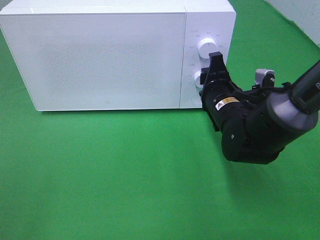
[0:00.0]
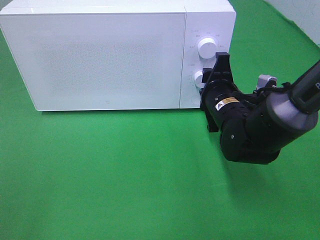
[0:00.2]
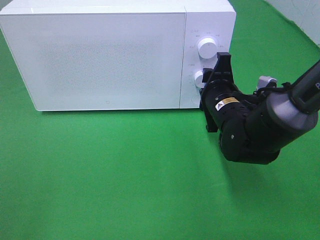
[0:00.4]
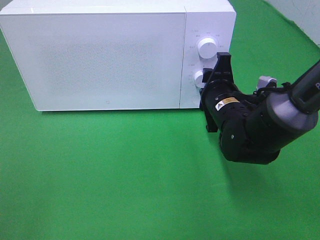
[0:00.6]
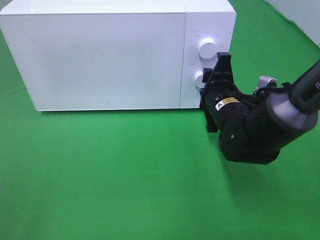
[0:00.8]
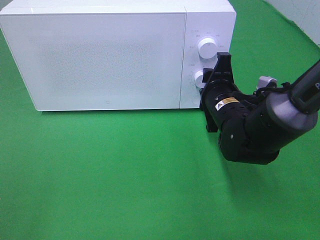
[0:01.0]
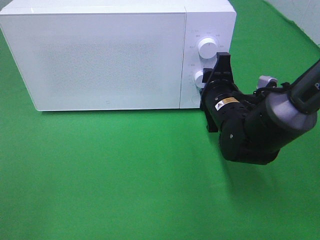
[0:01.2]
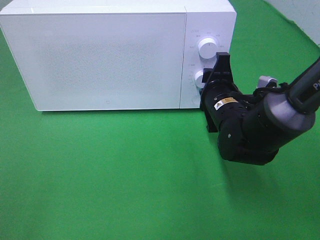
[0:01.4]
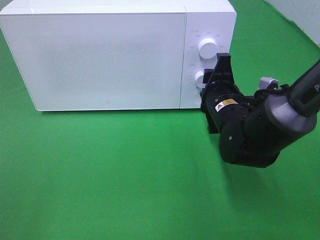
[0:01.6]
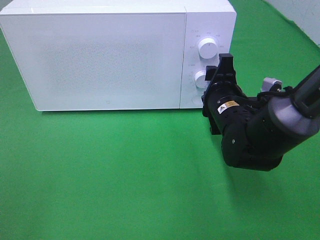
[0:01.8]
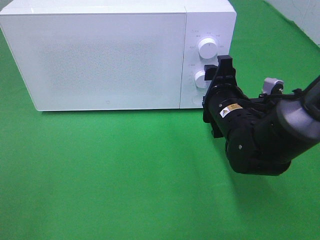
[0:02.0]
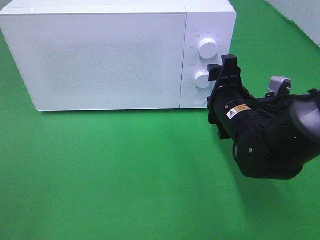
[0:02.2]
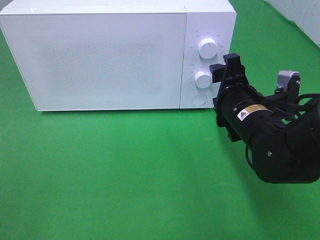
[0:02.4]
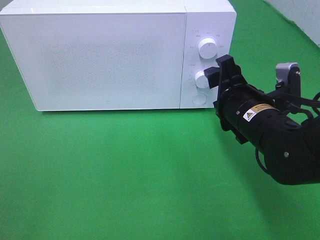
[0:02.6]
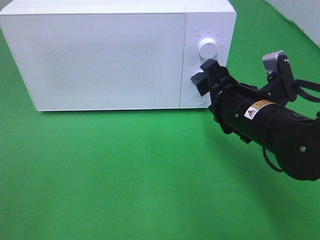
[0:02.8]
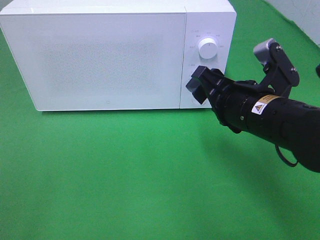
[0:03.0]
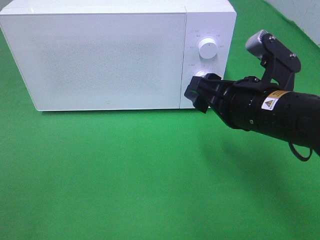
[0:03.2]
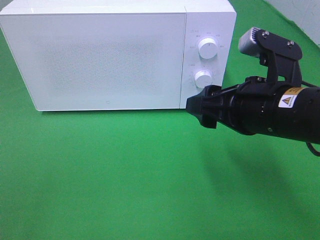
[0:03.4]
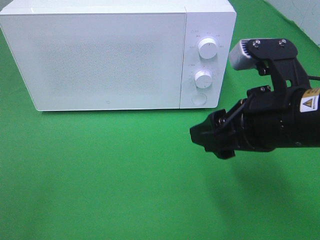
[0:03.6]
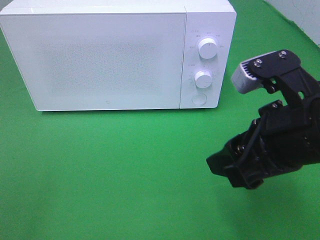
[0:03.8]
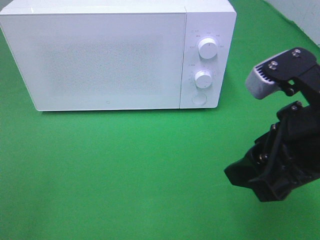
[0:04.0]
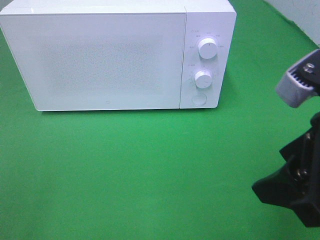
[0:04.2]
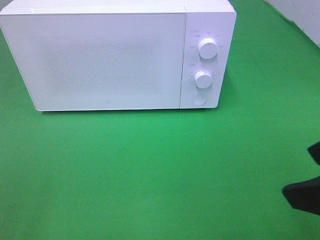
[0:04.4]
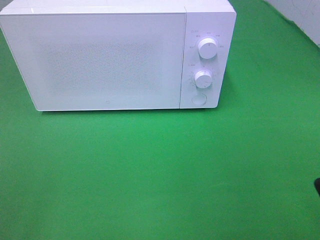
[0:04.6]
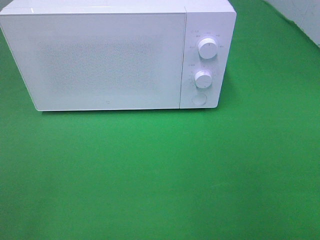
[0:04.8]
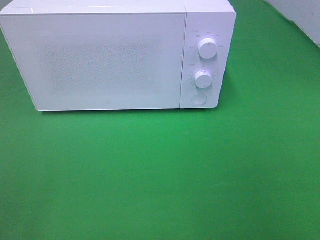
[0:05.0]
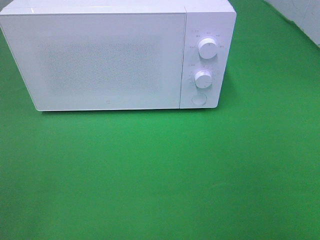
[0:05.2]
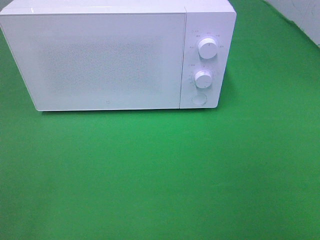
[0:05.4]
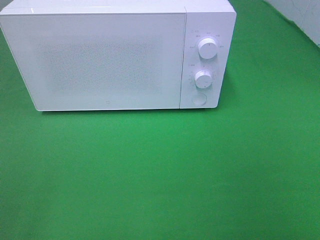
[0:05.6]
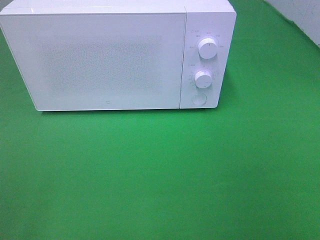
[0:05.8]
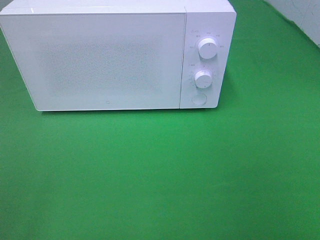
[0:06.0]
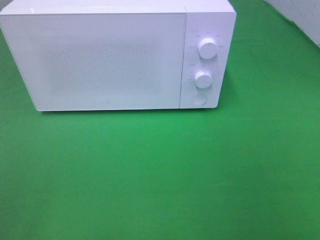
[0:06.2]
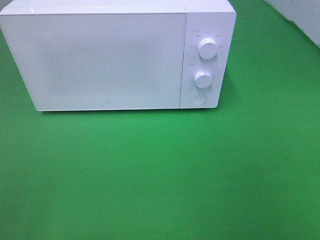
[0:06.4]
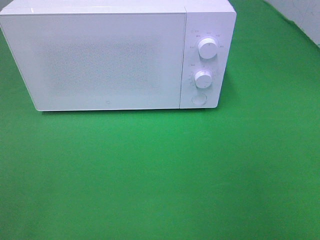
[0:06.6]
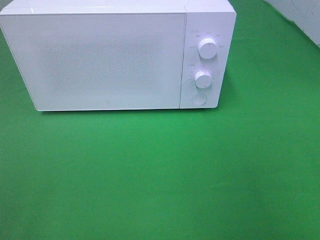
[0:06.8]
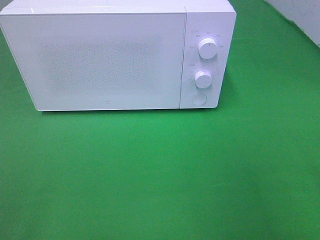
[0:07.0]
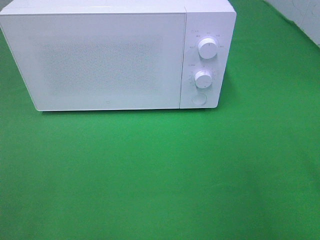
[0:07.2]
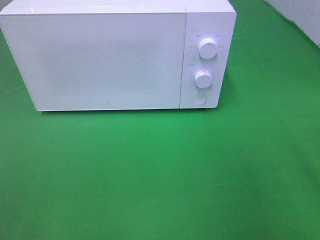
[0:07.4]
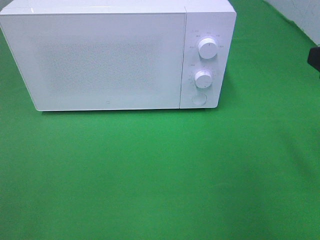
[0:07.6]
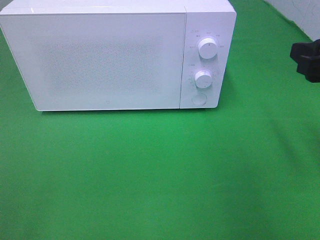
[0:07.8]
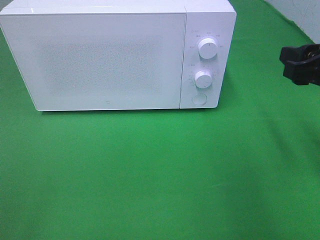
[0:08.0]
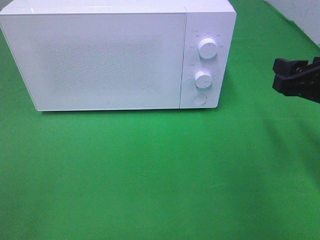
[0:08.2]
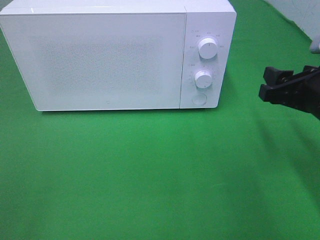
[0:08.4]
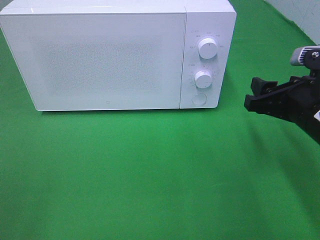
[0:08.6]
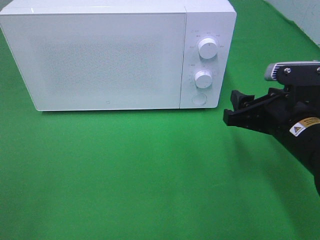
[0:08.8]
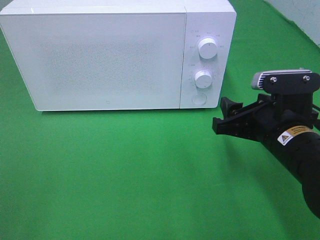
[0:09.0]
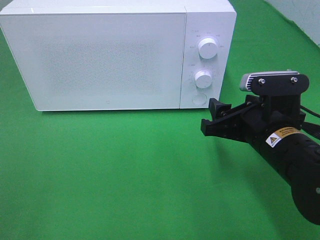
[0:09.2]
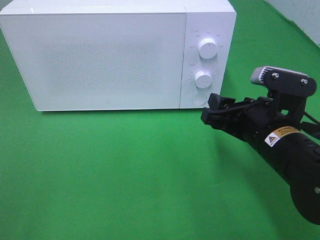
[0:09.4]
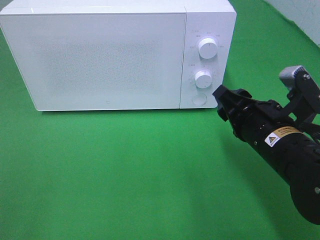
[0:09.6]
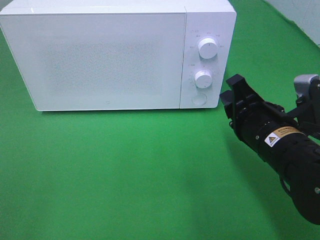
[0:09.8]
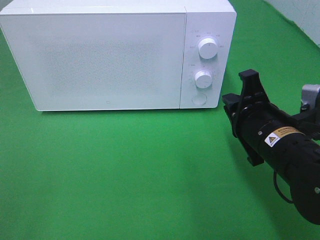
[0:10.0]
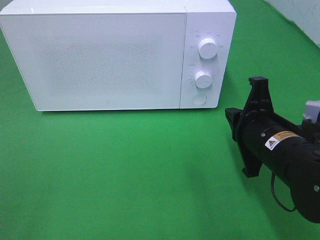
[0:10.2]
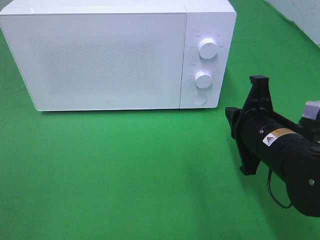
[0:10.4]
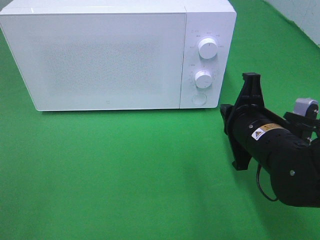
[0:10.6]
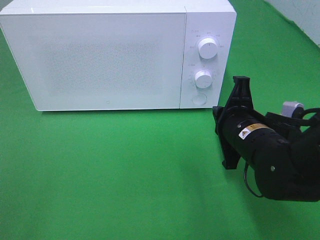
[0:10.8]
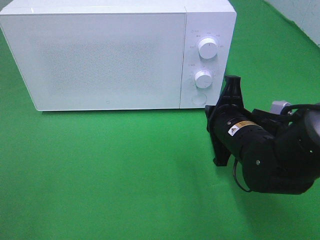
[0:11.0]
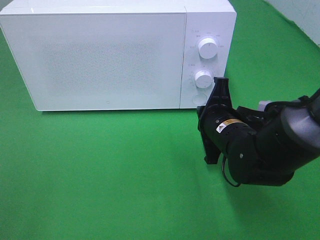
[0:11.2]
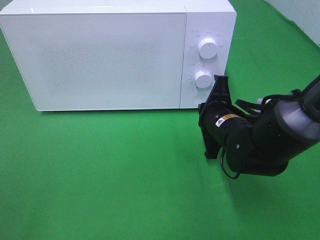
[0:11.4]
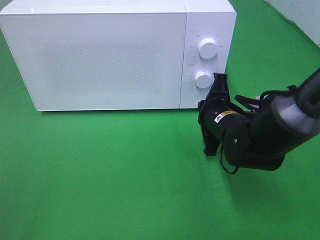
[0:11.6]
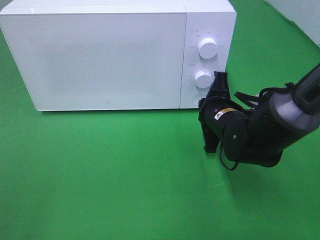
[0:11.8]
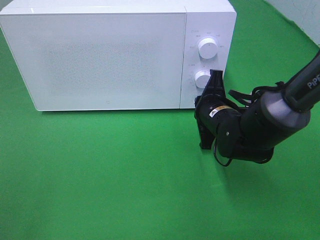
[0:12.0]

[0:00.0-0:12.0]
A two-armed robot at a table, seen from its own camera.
Task of the whole recording: Heat the burger.
Step, 0:00.0 to 0:02.0: Right hand: twist timer button.
0:00.0 to 0:01.6: The grippers move only a little.
0:01.6 to 0:03.0: The right gripper goes about 10 cm backward and upward.
0:03.0 to 0:04.4: The right gripper heads backward, upward and to the right, covering about 20 cm.
0:04.4 to 0:06.0: The right gripper shifts roughly 15 cm backward and to the right.
0:07.6 to 0:09.0: The right gripper goes about 15 cm downward and to the left.
0:09.0 to 0:10.4: The right gripper closes.
0:10.4 to 0:12.0: The right gripper travels forward and downward by roughly 10 cm.

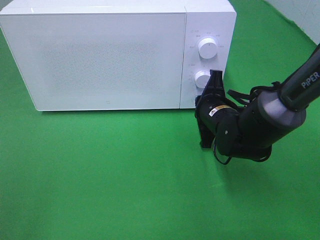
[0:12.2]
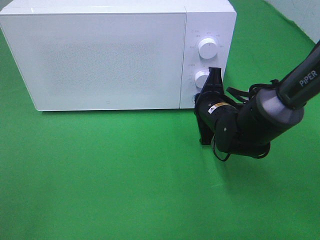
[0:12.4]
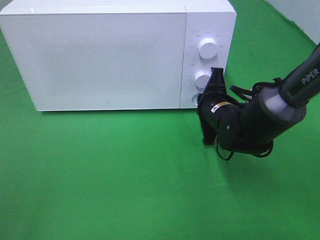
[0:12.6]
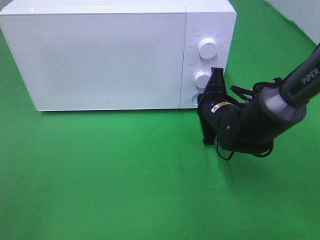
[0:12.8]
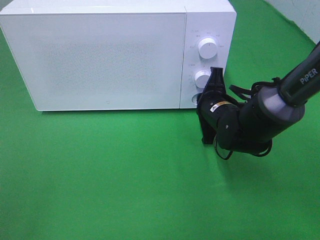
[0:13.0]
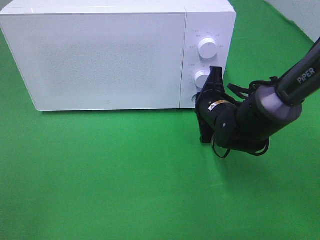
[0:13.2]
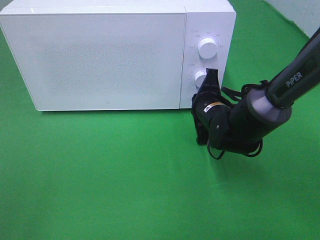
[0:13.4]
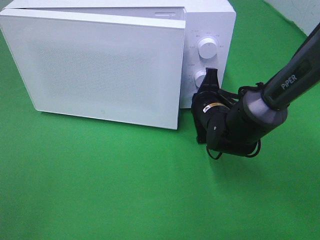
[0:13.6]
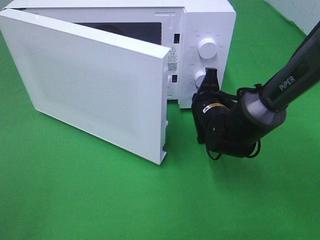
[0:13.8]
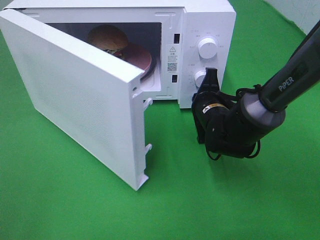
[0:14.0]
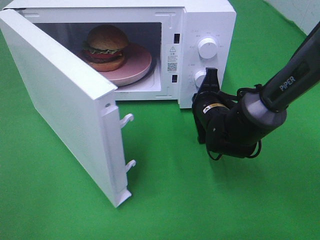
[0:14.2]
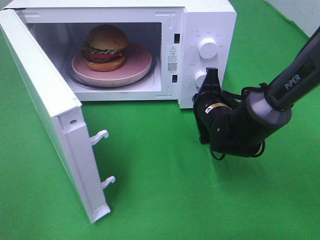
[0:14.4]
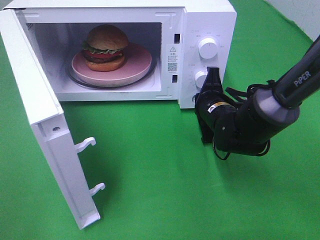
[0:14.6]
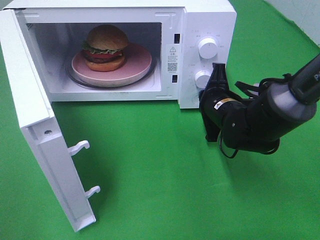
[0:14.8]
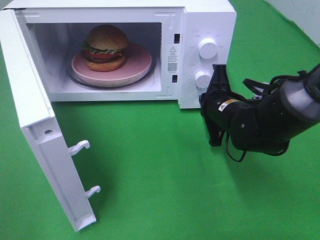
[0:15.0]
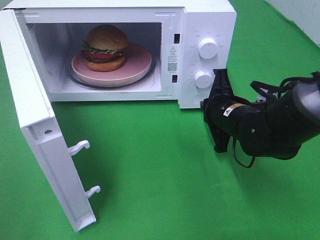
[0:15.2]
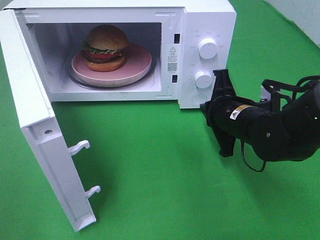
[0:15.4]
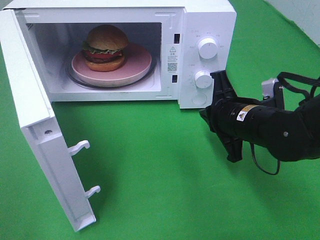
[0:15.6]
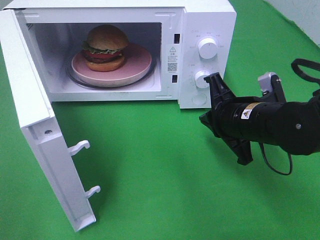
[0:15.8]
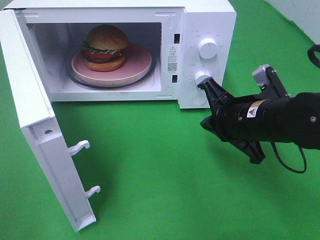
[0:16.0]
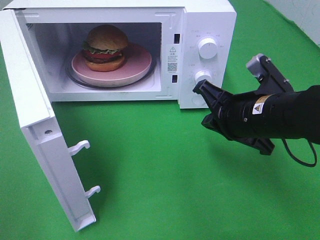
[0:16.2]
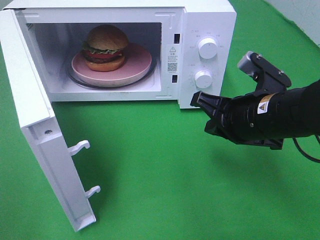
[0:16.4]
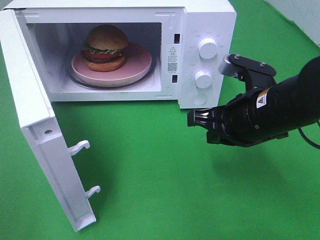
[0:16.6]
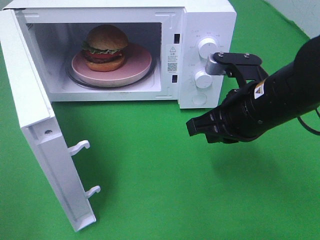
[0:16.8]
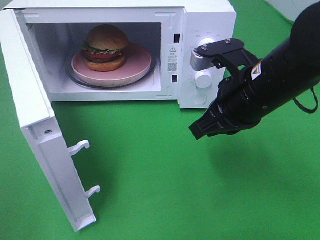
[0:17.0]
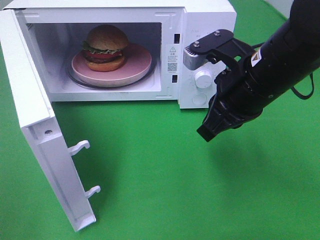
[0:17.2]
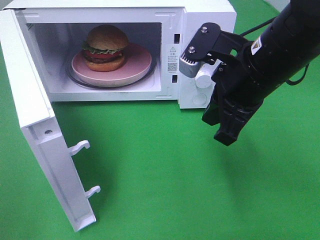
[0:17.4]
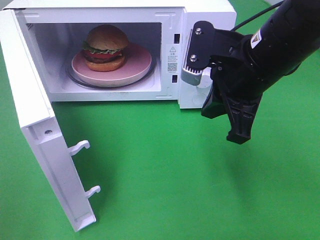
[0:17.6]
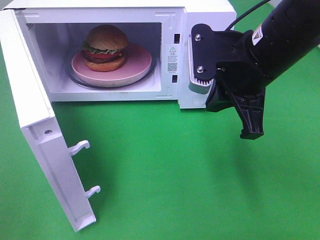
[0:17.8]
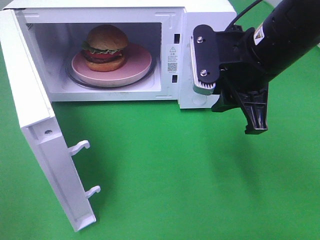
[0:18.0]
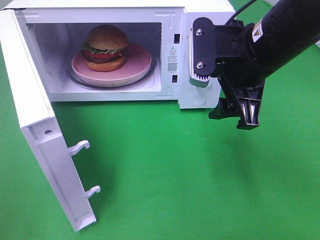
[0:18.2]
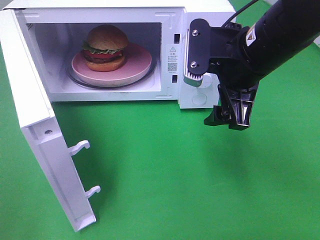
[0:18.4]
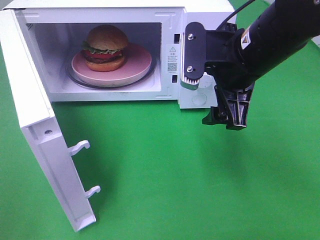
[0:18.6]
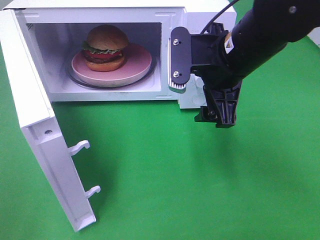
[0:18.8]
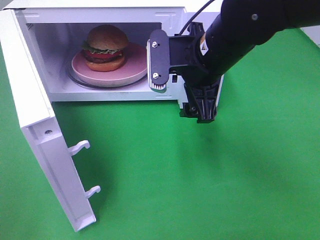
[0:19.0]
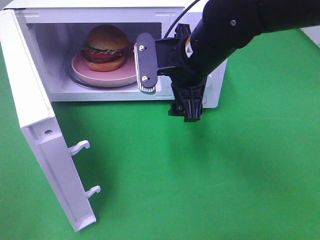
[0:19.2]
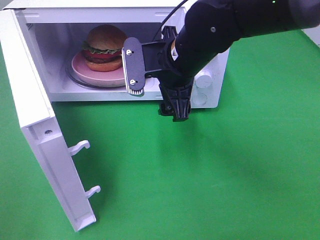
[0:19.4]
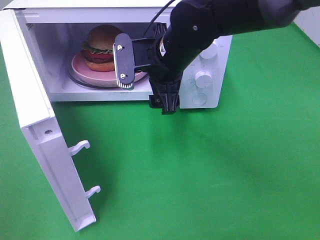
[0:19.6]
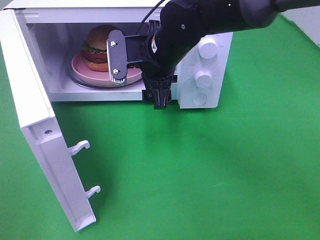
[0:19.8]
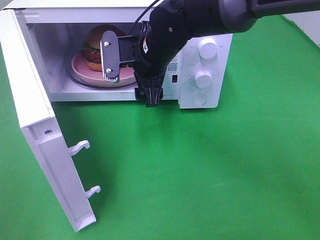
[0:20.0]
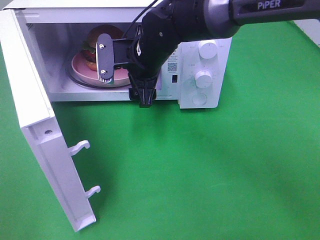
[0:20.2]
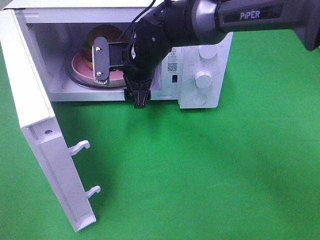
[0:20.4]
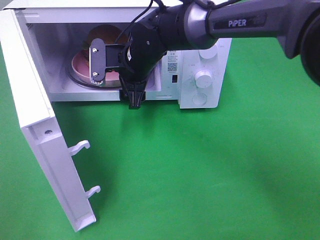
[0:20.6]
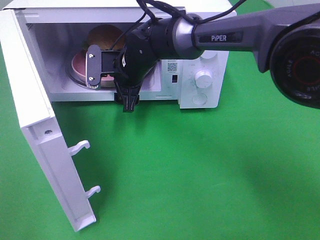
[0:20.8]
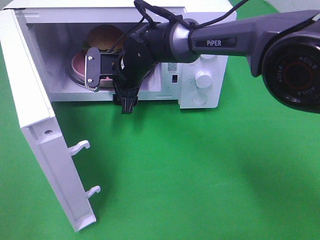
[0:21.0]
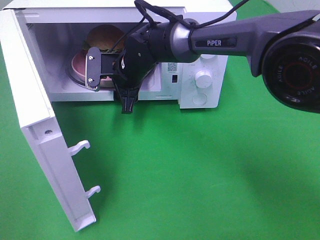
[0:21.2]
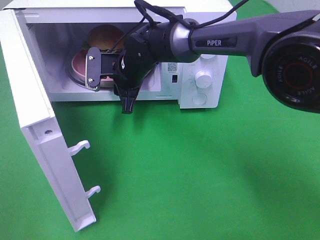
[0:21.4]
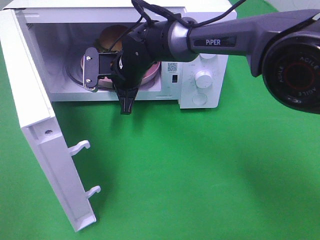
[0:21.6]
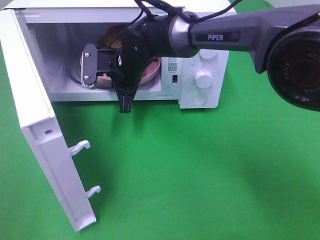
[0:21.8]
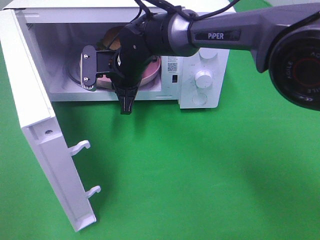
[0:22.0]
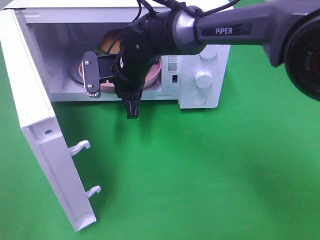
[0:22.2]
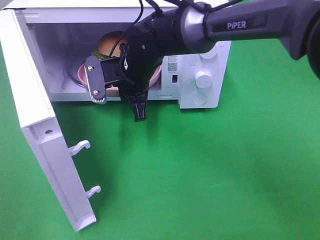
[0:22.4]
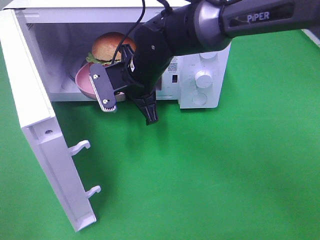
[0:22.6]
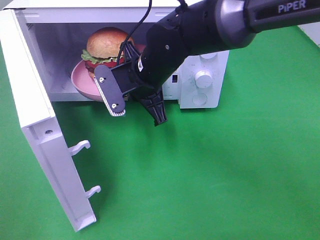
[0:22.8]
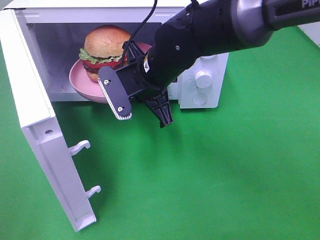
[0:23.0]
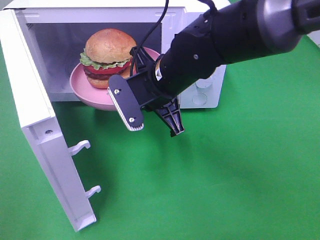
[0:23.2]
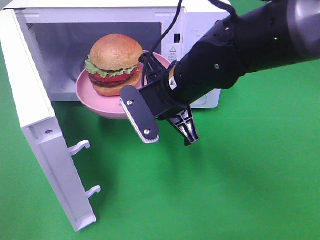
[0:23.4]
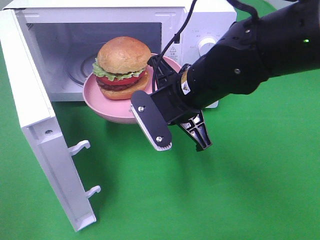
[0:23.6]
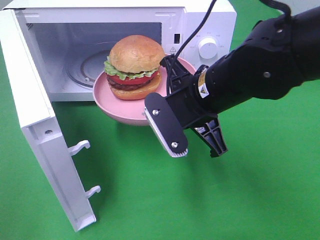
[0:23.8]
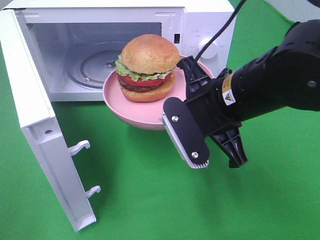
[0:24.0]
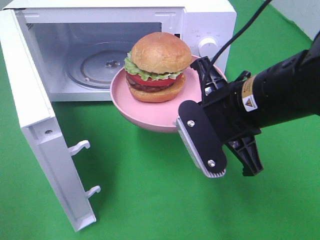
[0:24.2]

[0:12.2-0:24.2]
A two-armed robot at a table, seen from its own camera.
Task of the whole recording: Heat the burger.
Step, 0:12.2 to 0:17.6: Right hand: press the switch.
Step, 0:17.8 to 0:21.6: Right hand: grab the plate with the hamburger.
0:12.2 to 0:13.8: The grippers stay close to where they were, moving slightly.
0:13.8 to 0:15.2: The right gripper ends up about 5 cm from where it was.
0:15.2 to 0:16.6: The right gripper goes some 10 cm upward and backward.
0:16.6 to 0:18.2: The right gripper shifts some 10 cm upward, and opens.
0:18.2 to 0:19.8: The right gripper shifts some 15 cm to the left, forward and downward.
0:19.8 to 0:21.2: The right gripper moves downward, forward and to the left, some 10 cm.
0:21.2 to 0:22.6: The right gripper is displaced backward by approximately 5 cm, and closes up.
0:22.6 to 0:24.2: The right gripper travels backward and to the right by some 20 cm.
